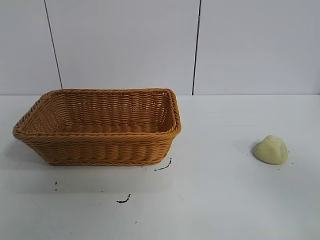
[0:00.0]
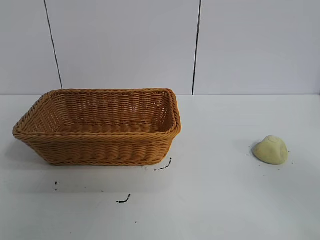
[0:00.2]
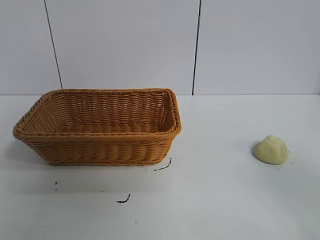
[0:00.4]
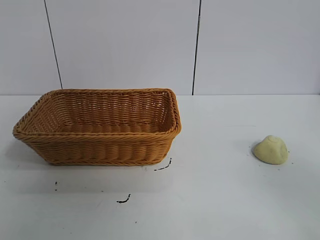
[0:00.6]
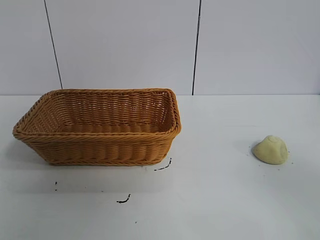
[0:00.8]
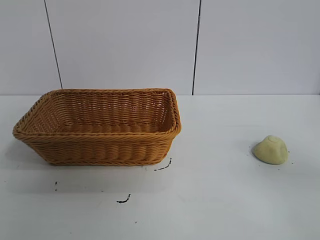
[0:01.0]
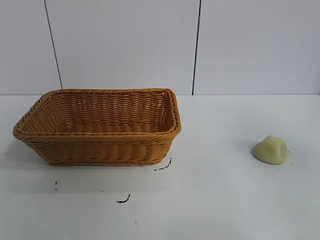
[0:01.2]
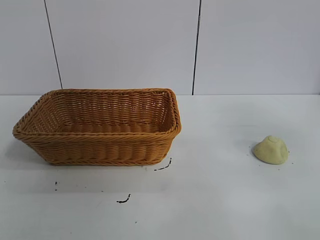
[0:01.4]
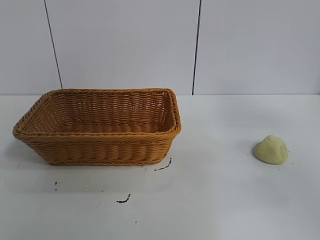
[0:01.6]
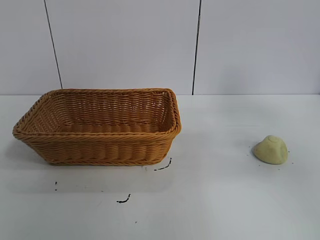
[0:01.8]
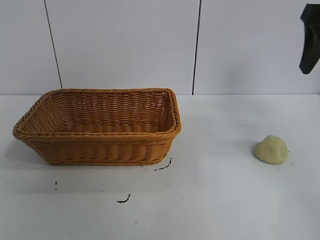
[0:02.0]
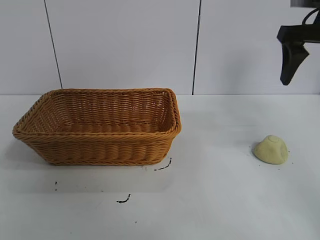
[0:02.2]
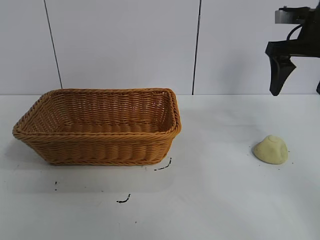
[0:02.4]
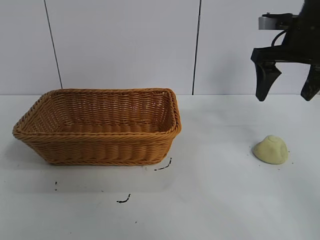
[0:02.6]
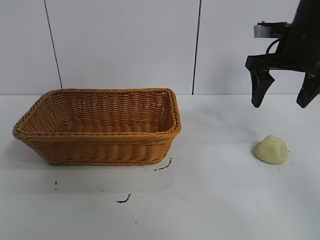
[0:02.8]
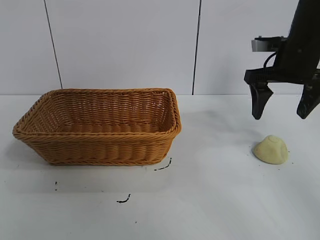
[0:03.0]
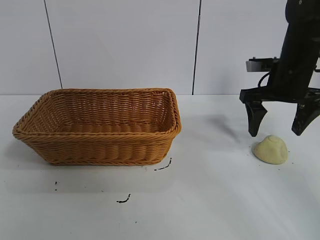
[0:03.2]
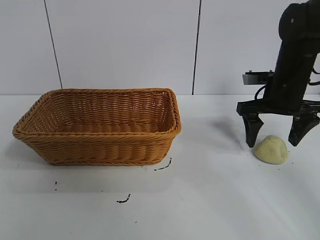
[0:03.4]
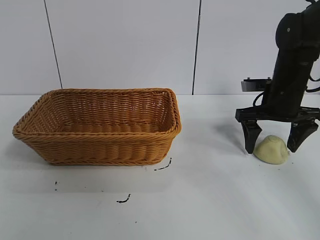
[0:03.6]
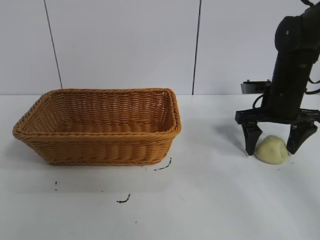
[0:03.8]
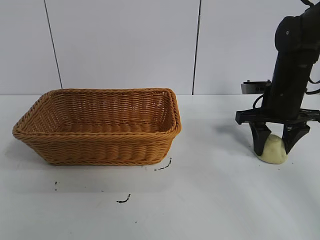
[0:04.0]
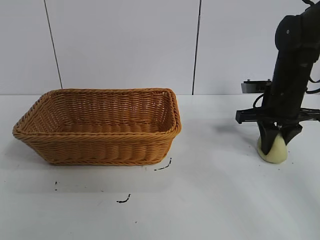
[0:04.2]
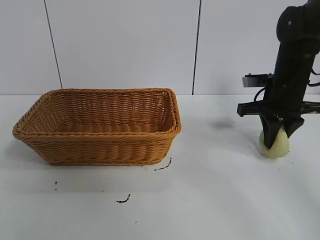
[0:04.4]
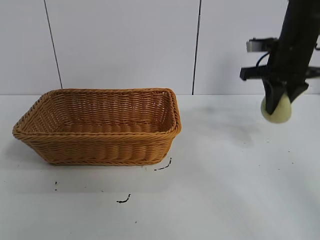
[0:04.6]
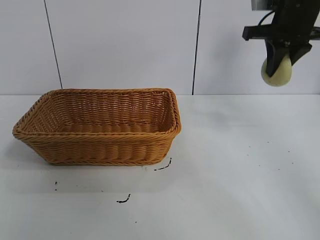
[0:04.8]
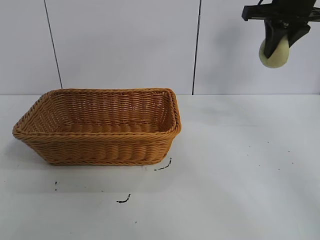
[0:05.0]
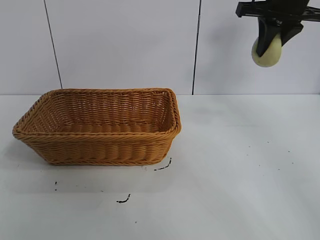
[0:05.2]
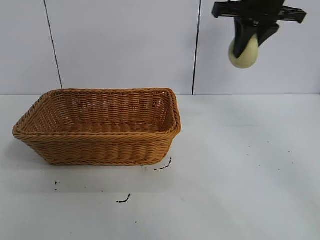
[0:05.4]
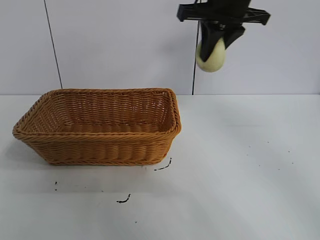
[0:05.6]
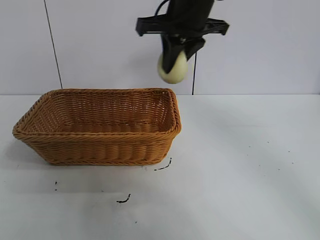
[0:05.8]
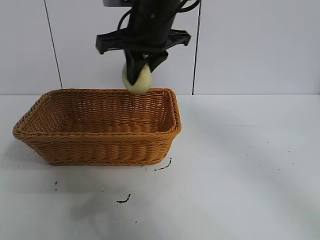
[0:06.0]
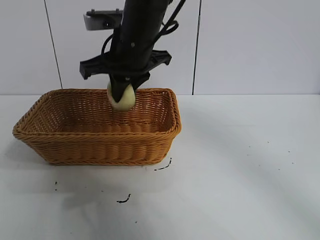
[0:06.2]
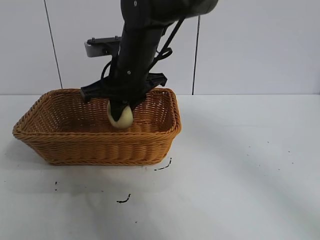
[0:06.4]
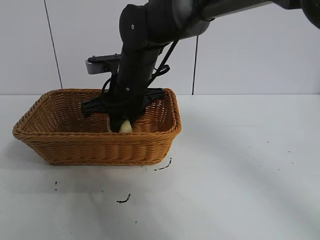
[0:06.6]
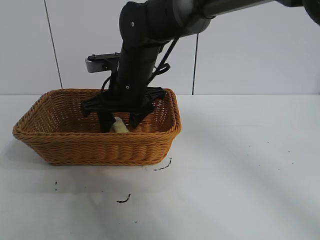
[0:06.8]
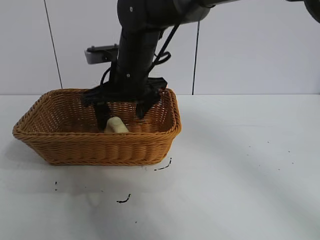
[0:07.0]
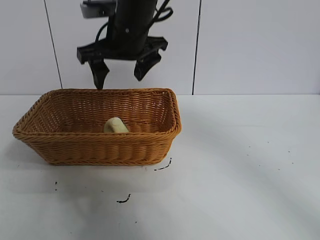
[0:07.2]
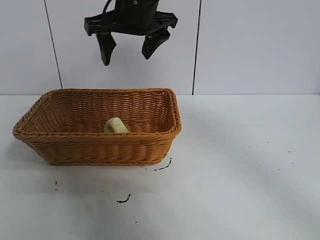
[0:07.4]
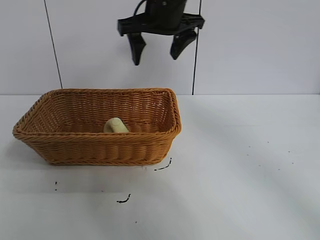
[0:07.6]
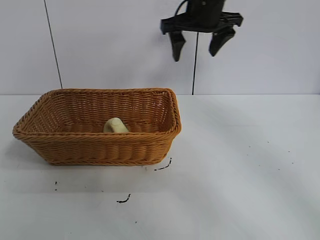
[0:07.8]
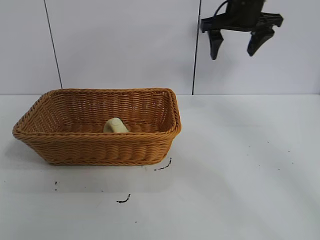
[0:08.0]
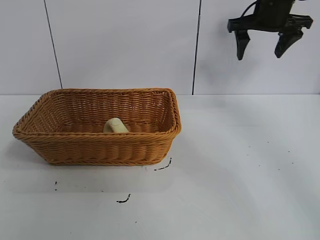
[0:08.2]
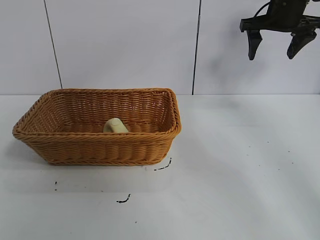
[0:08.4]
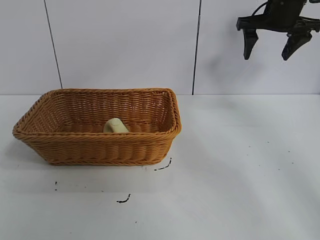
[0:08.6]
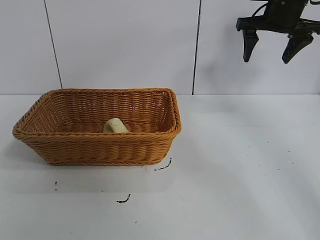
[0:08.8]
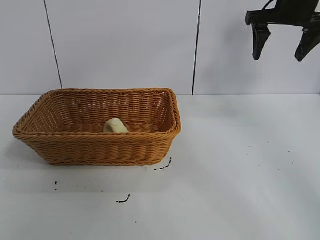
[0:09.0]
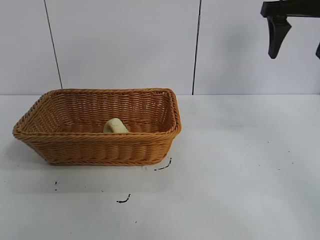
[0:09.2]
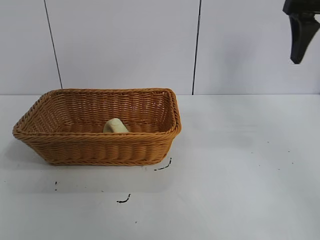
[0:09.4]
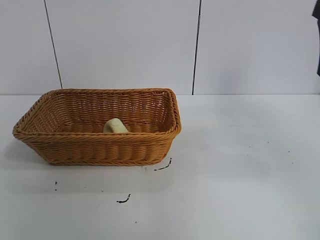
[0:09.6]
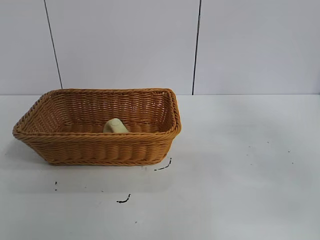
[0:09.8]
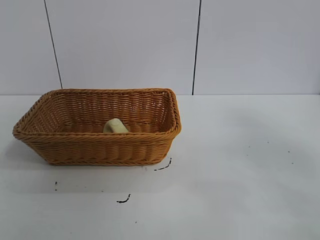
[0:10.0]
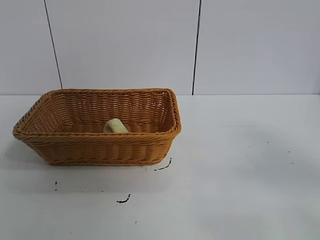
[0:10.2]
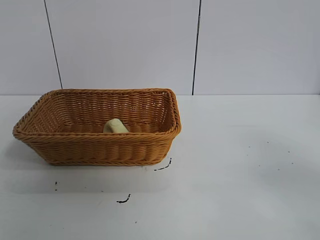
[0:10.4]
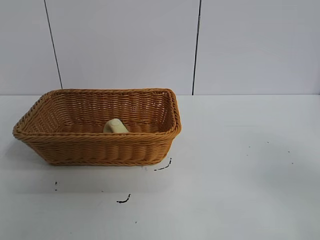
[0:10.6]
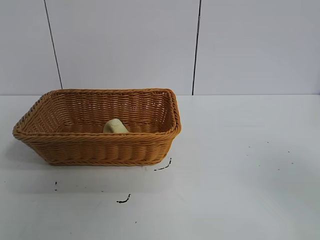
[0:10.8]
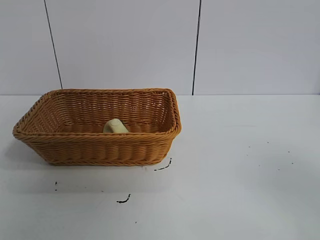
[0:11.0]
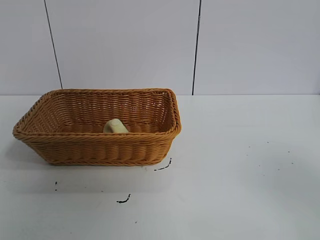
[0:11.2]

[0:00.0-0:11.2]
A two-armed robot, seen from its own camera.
Task of the whole recording: pick up the egg yolk pastry and put it into the basket.
Step, 0:00.8 to 0:04.0: Grasp egg yolk pastry with right gripper.
Step, 0:04.2 to 0:06.6: Place the egg yolk pastry in the basket with right gripper.

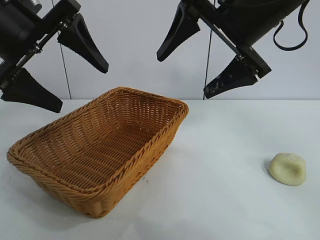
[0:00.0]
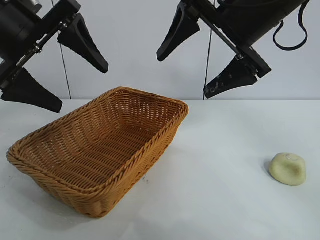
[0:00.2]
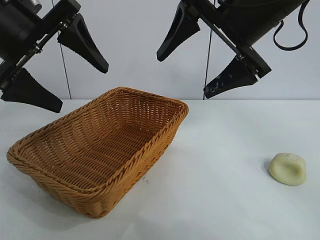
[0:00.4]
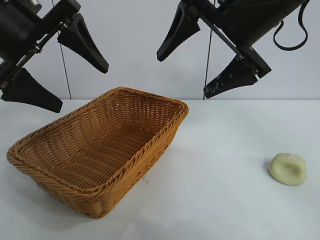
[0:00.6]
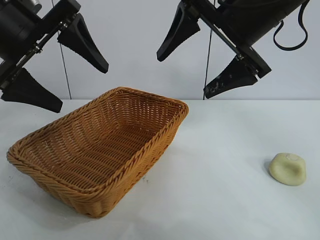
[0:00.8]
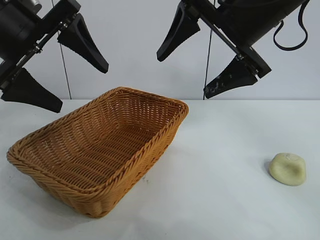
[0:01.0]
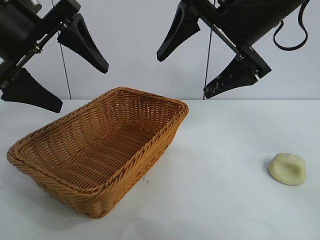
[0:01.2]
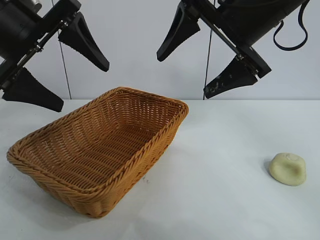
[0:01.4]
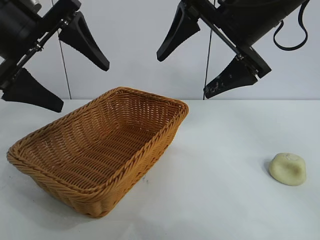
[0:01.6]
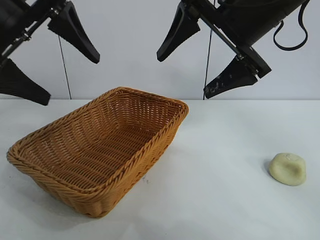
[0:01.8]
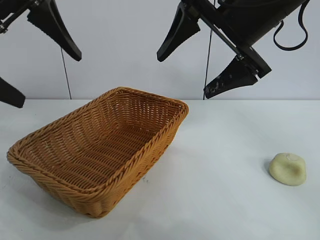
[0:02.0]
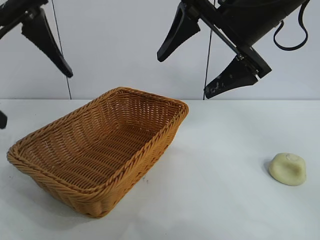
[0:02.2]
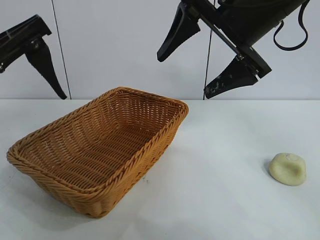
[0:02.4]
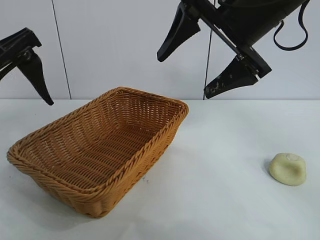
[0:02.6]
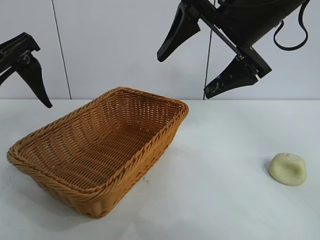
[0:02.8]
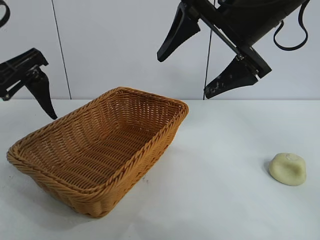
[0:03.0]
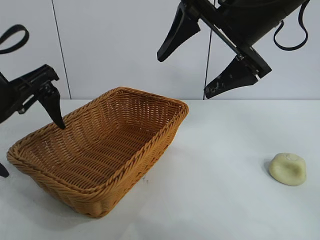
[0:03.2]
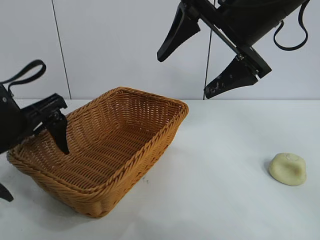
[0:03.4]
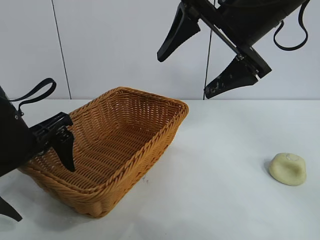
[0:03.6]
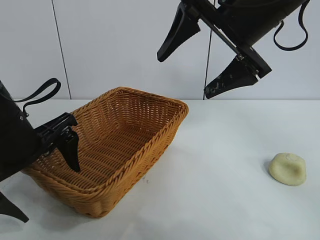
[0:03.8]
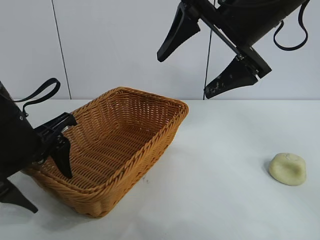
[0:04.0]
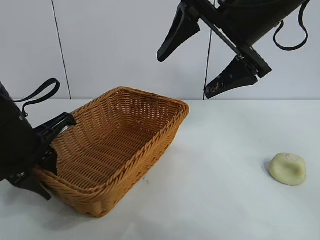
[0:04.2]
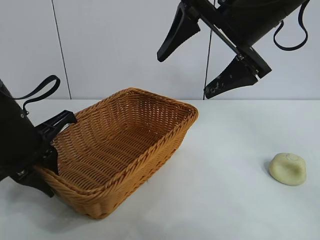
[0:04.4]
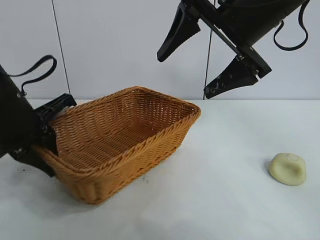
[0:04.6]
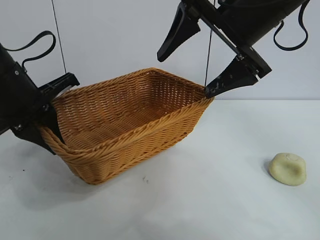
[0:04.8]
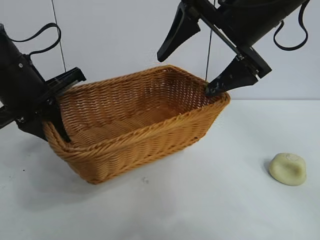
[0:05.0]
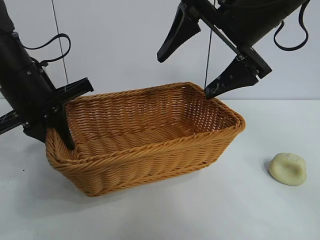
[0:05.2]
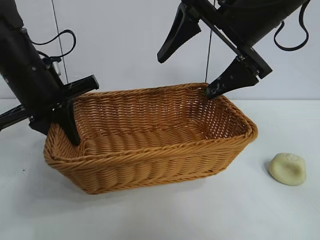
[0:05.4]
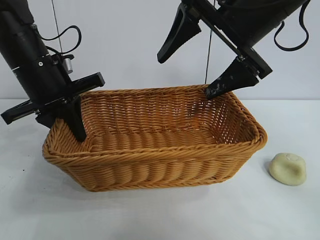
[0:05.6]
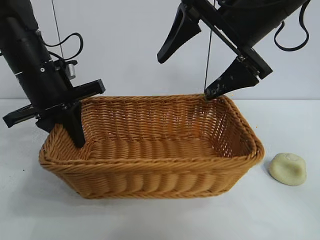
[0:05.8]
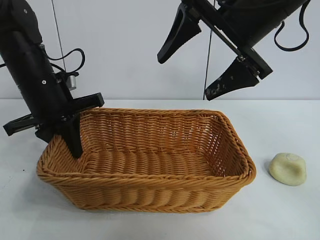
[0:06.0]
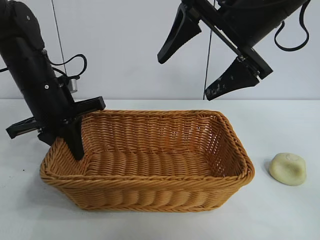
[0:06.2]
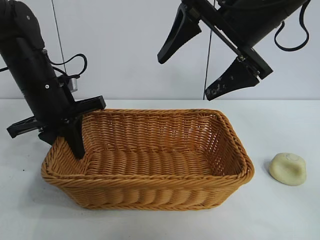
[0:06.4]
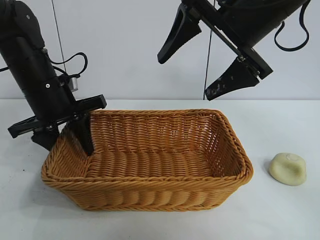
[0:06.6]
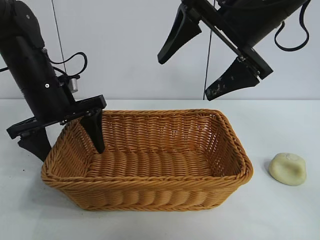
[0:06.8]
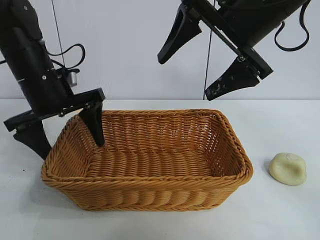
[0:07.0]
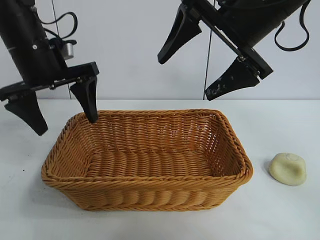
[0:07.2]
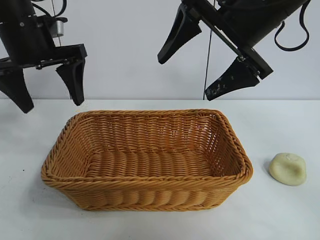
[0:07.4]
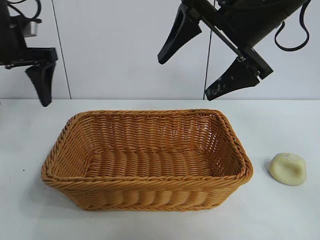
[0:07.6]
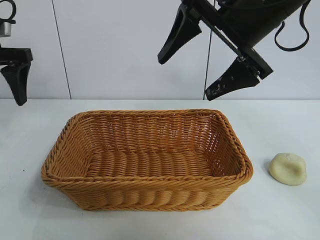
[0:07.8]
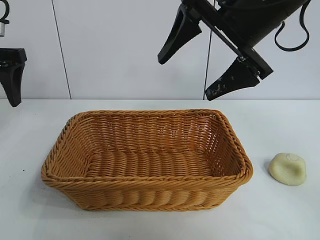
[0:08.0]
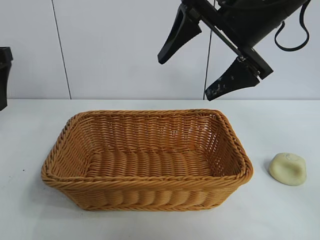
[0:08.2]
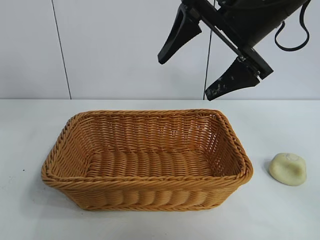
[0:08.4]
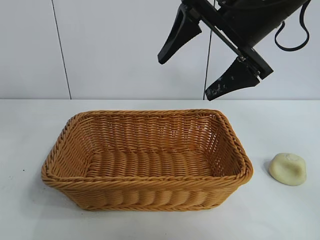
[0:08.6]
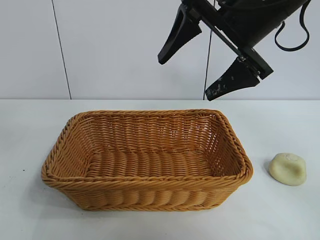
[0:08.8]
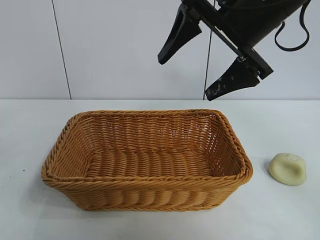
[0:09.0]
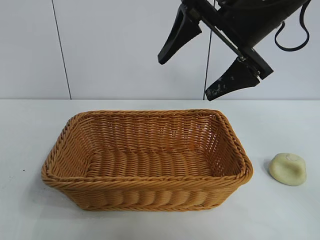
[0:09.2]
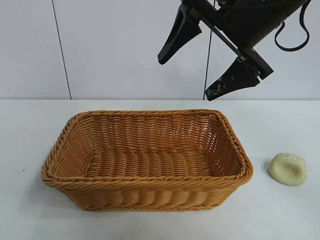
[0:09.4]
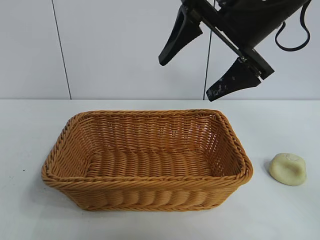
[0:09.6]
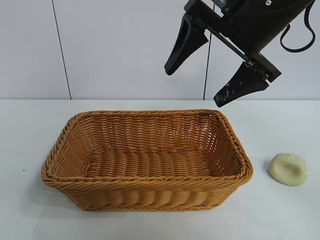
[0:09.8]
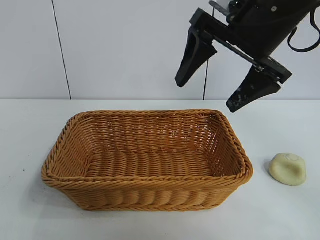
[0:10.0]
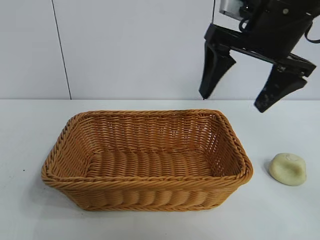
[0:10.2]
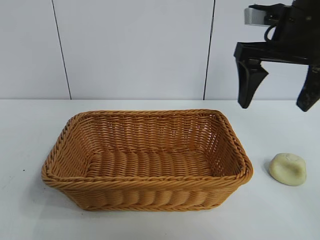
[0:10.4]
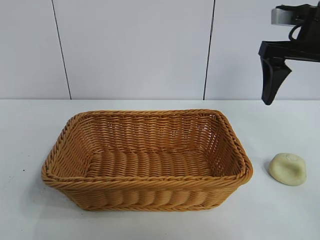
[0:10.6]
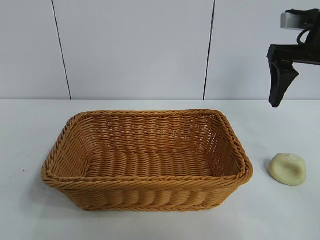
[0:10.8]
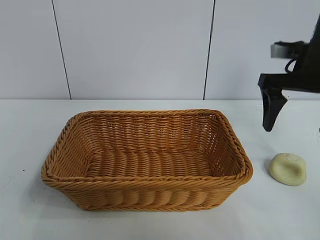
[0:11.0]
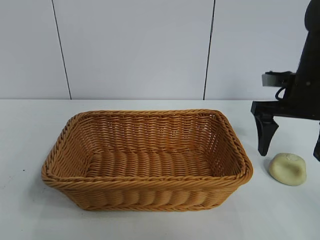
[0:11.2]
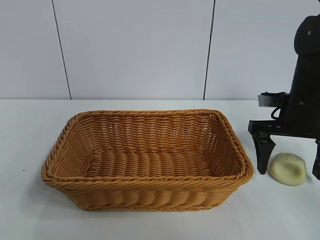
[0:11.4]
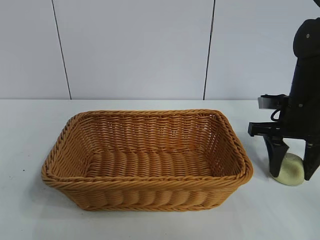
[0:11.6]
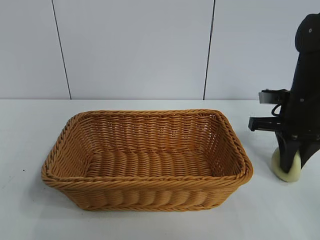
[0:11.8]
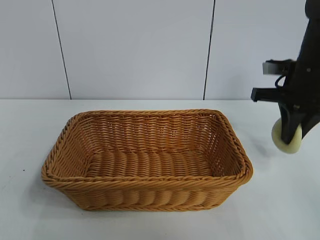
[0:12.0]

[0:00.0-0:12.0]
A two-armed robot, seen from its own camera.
Task of the whole recording: pick up the egg yolk pastry and put it into the basket.
Step, 0:01.4 to 0:04.2: Grasp the basket with left gripper.
Step, 0:04.4 to 0:06.6: Place the basket in the center of view with left gripper.
Step, 0:06.8 to 0:11.6: Grasp egg yolk pastry with right gripper.
